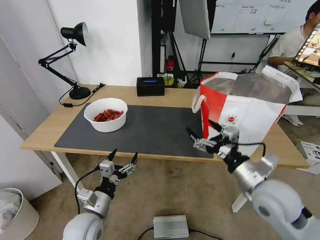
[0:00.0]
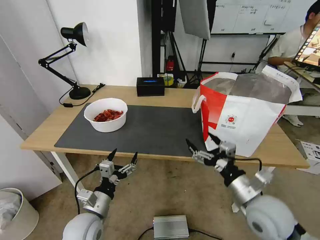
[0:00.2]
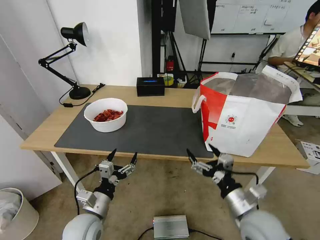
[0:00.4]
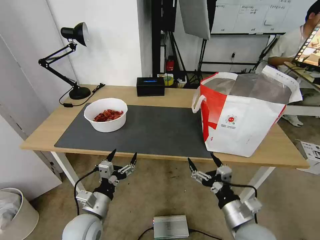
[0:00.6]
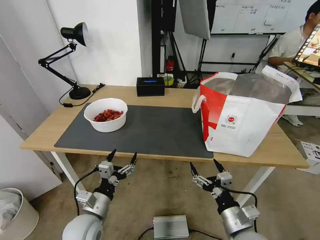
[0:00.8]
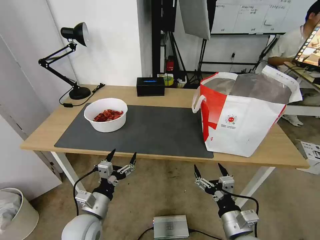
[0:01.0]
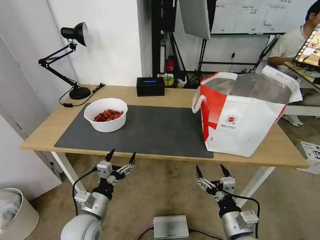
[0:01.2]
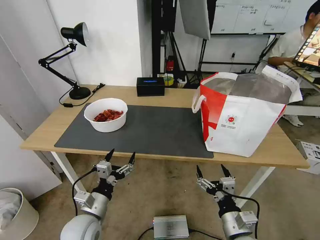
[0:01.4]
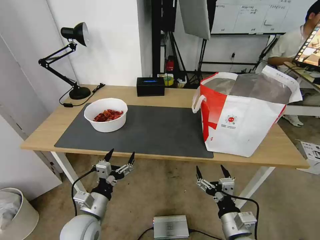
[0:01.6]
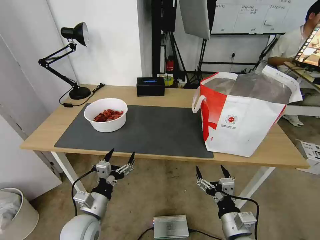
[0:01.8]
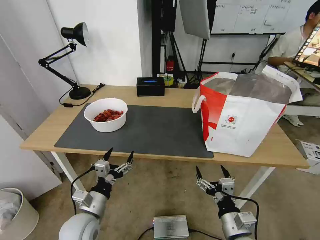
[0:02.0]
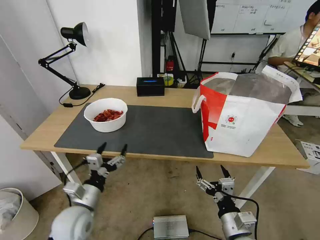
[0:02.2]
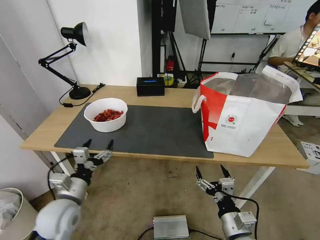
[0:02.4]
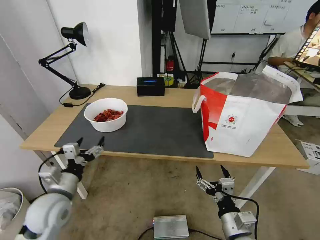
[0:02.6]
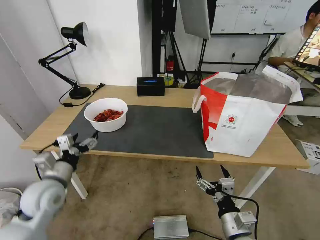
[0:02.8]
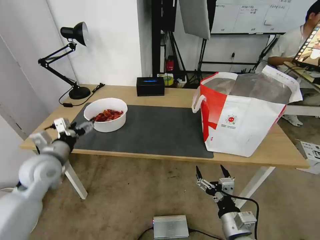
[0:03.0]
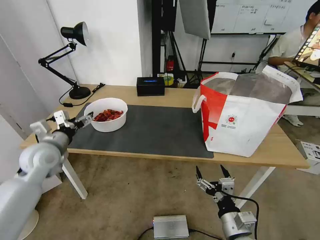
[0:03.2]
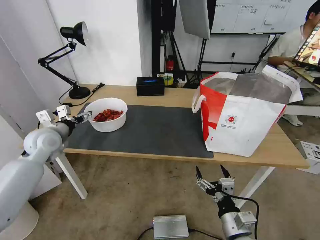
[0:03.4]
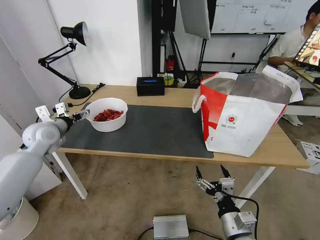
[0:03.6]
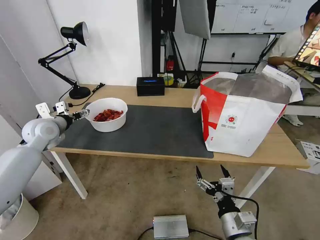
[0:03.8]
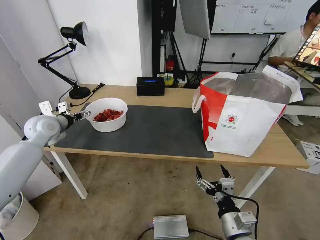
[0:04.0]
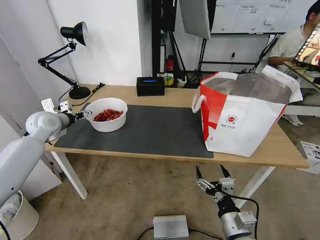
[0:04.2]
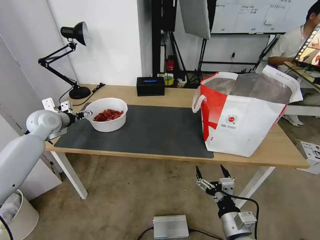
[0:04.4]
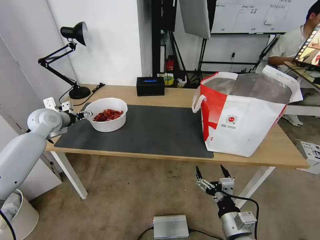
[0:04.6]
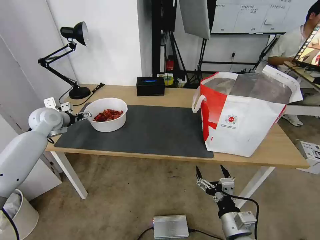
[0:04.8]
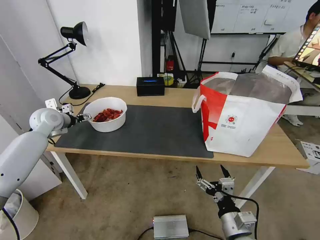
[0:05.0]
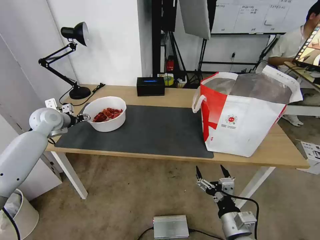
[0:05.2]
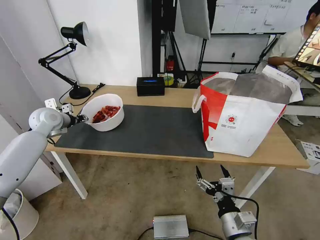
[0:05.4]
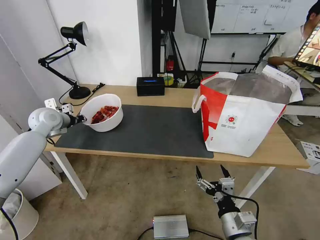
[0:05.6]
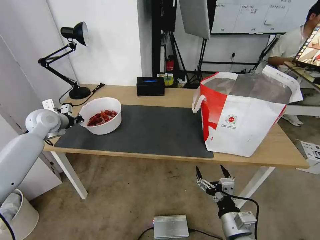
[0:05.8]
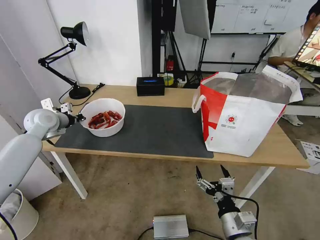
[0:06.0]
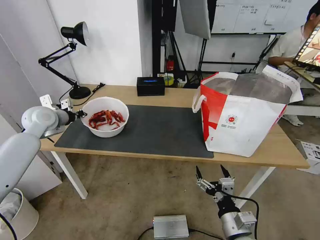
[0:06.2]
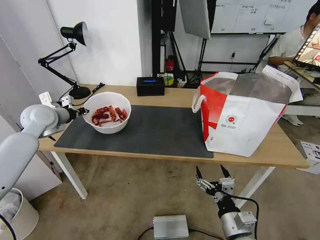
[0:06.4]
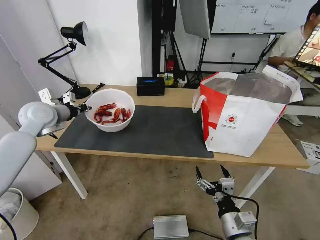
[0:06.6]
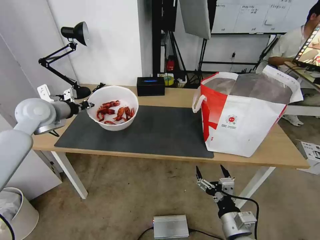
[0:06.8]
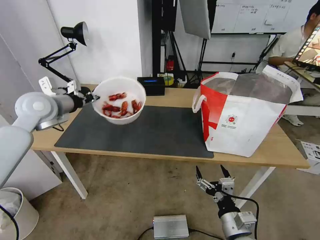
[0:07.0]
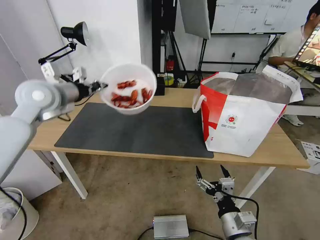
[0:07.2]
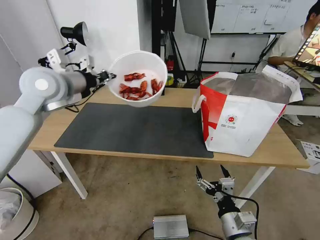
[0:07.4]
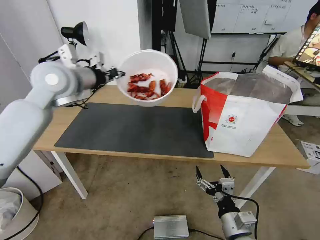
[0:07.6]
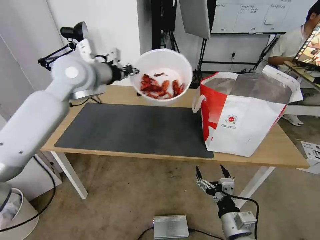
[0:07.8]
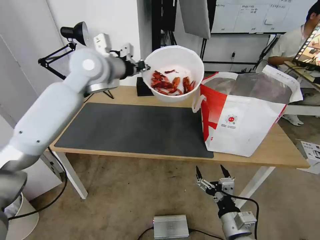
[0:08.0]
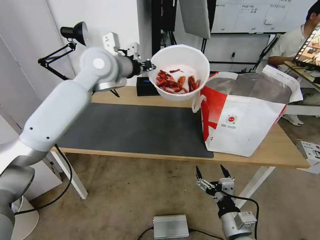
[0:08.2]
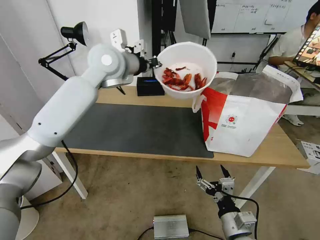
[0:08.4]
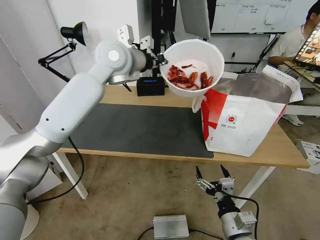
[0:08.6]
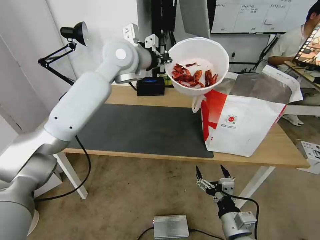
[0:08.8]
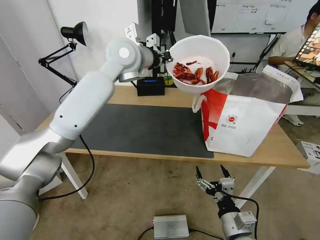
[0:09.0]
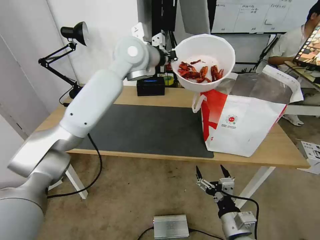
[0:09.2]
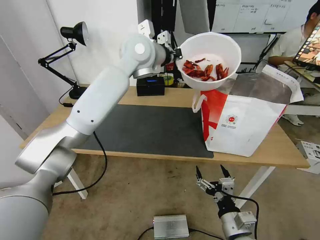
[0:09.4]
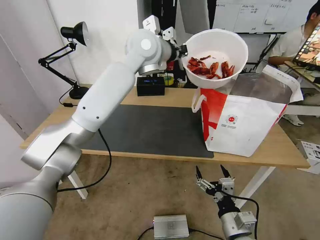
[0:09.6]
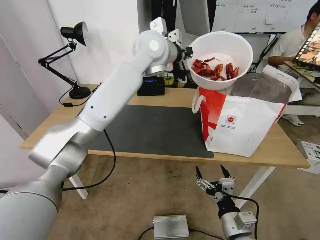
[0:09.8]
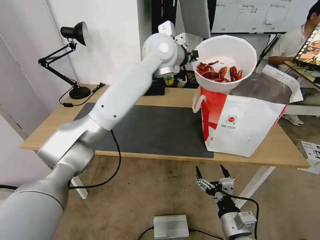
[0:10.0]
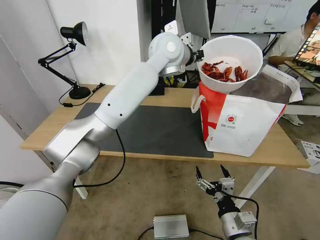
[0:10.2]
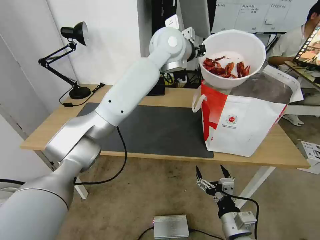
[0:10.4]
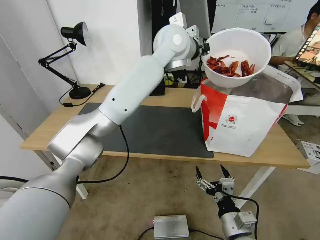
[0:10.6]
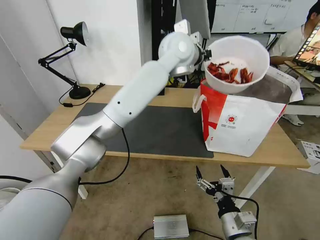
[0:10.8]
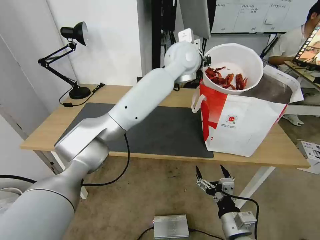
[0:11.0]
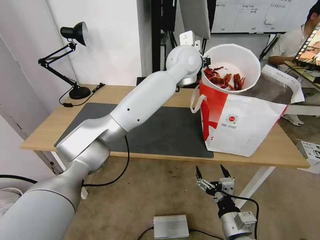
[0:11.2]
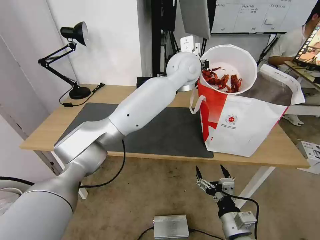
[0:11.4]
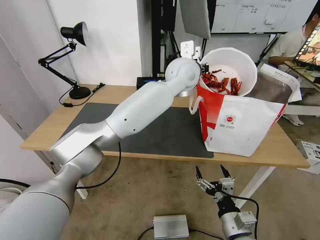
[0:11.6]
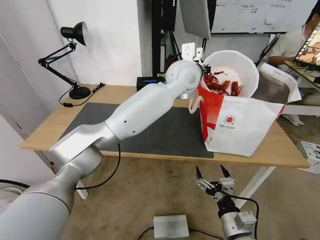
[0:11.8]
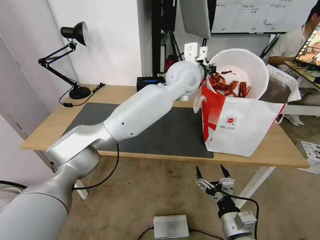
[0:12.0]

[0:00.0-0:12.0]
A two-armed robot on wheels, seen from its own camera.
Task of the whole recording: Pick up the trash from the table and place it into the takeout bag.
0:00.0 to 0:01.6: The right gripper shifts some 15 cm downward and backward.
0:01.6 to 0:03.0: The left gripper shifts roughly 20 cm forward, upward and to the left.
0:03.0 to 0:04.4: The left gripper heads forward, covering approximately 15 cm.
0:04.4 to 0:06.0: The left gripper closes its fingers.
0:06.0 to 0:07.6: The left gripper heads upward and to the right, covering roughly 20 cm.
0:07.6 to 0:09.0: The left gripper is displaced to the right and forward by approximately 20 cm.
0:09.0 to 0:10.4: The left gripper goes approximately 10 cm to the right.
0:10.4 to 0:12.0: The left gripper goes roughly 5 cm downward.

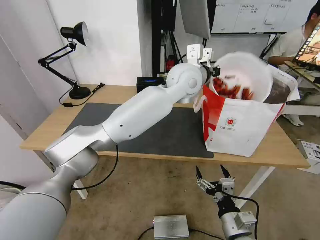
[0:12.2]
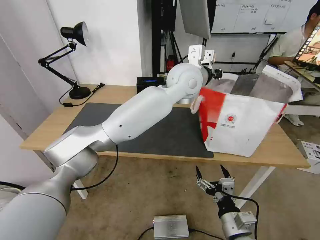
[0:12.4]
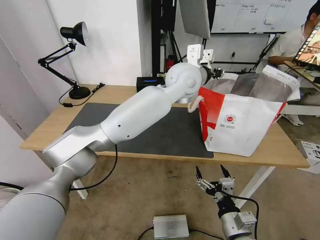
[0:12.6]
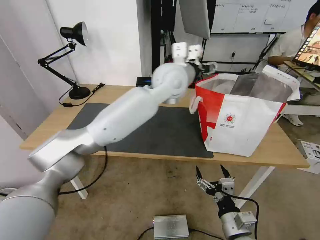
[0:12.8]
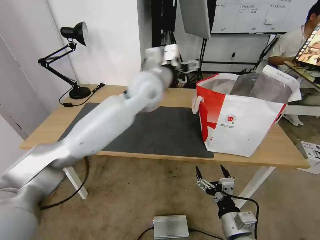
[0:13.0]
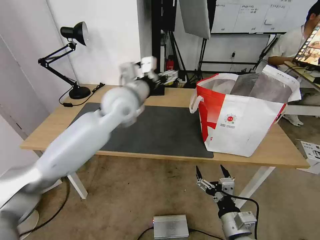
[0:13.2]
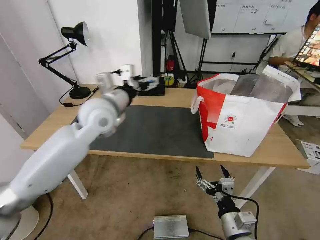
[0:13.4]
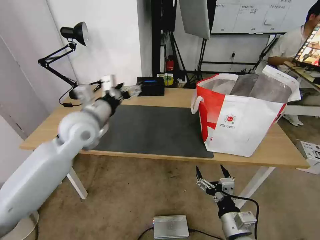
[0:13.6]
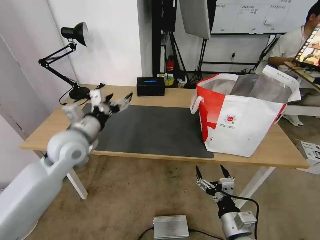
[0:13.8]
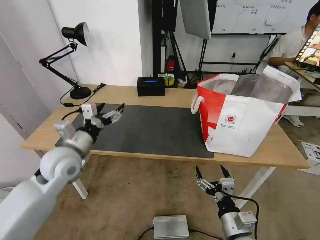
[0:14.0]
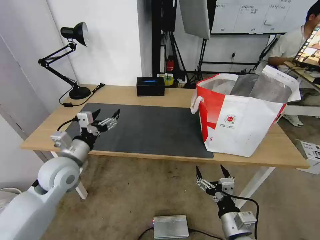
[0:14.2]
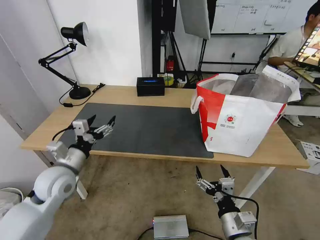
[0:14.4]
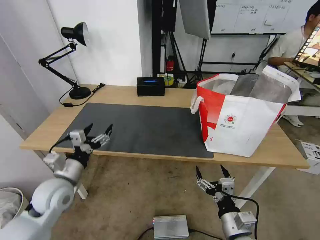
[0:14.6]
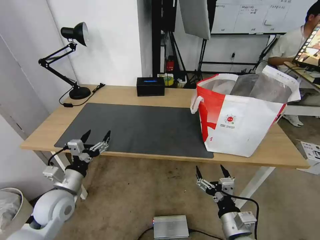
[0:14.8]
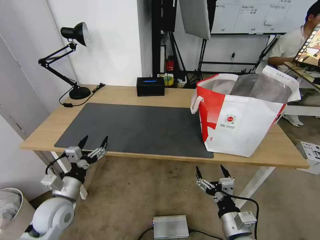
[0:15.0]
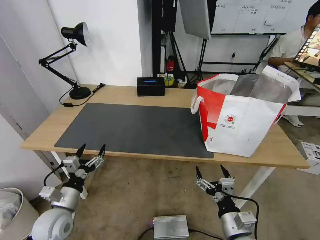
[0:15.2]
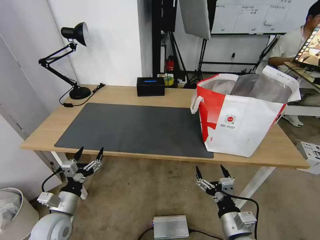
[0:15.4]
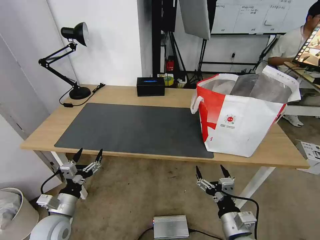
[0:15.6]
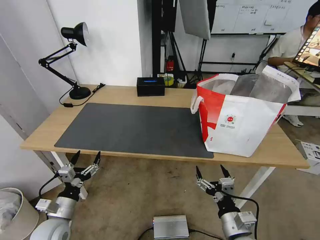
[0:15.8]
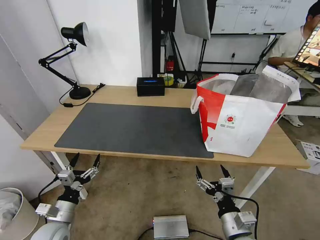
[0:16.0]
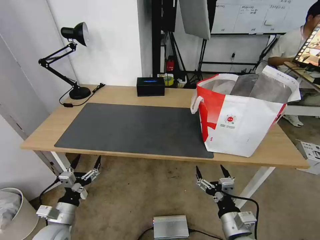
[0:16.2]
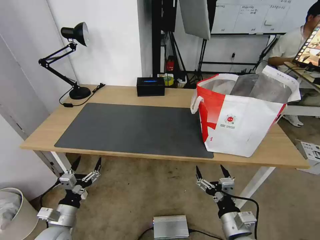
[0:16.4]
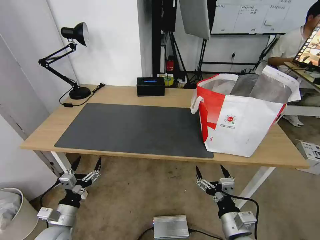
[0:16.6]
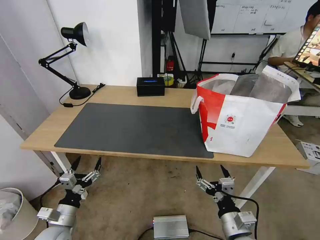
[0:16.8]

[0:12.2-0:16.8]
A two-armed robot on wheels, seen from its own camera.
Task of the whole recording: Pick up the trash from the table and place it into the takeout bag.
0:12.2 to 0:13.8: The left gripper shifts some 35 cm to the left, backward and downward, and opens.
0:13.8 to 0:15.2: The left gripper travels downward and backward by roughly 25 cm.
0:15.2 to 0:16.8: The left gripper travels downward by about 5 cm.

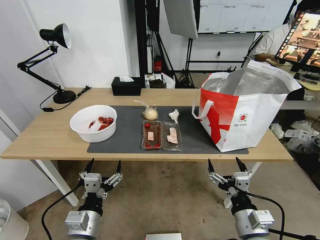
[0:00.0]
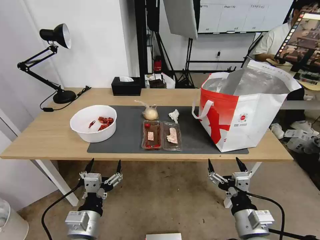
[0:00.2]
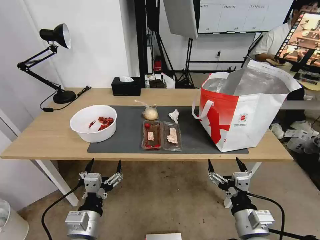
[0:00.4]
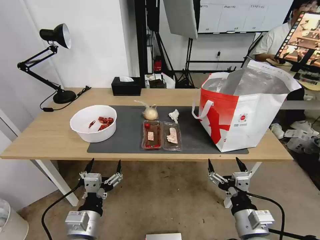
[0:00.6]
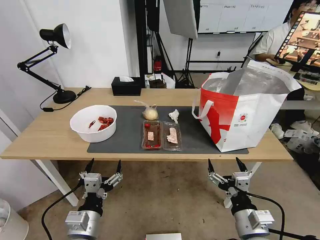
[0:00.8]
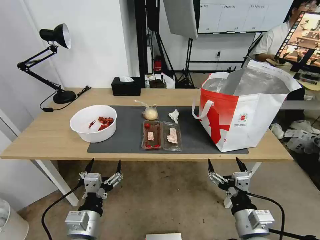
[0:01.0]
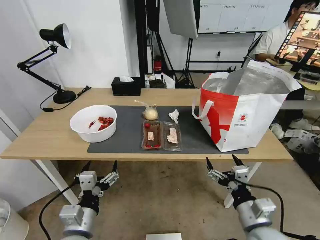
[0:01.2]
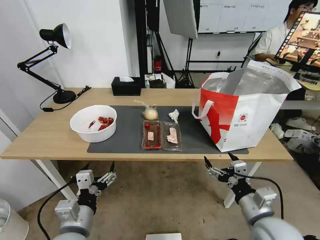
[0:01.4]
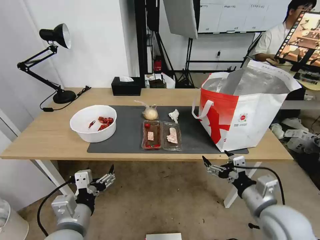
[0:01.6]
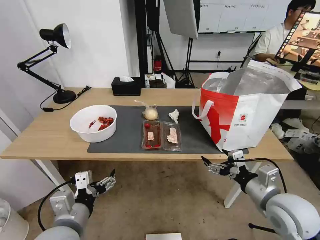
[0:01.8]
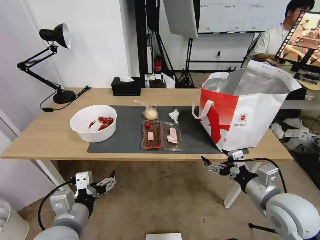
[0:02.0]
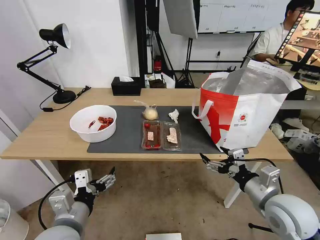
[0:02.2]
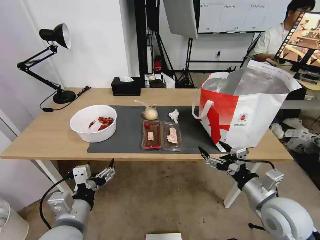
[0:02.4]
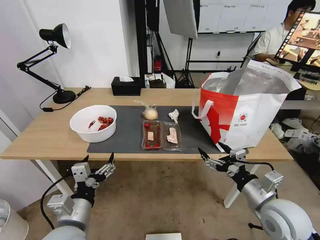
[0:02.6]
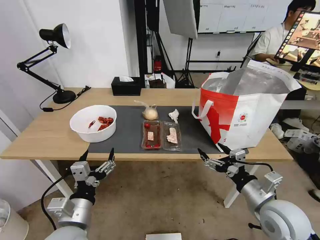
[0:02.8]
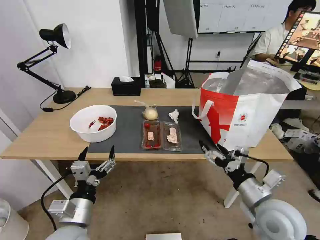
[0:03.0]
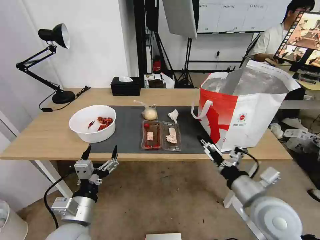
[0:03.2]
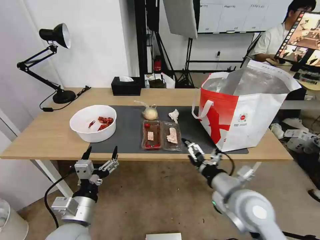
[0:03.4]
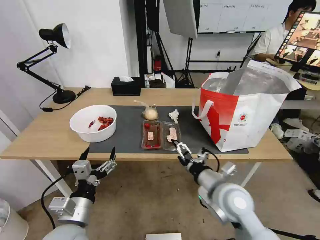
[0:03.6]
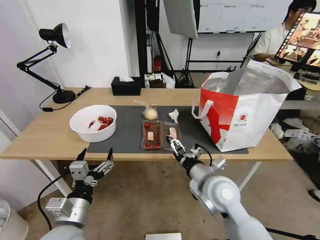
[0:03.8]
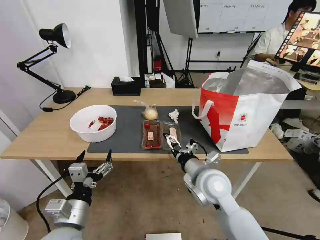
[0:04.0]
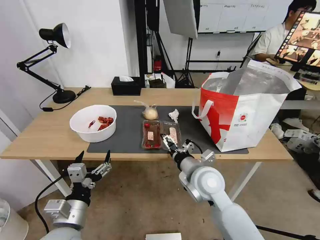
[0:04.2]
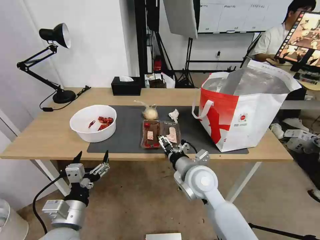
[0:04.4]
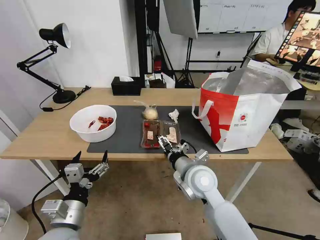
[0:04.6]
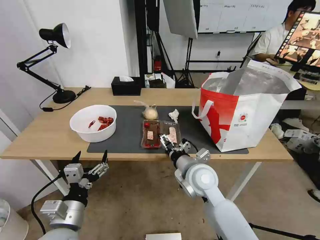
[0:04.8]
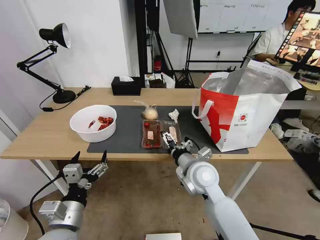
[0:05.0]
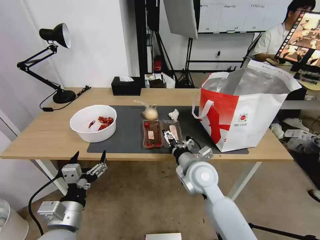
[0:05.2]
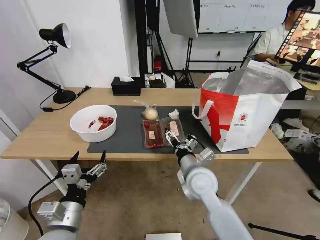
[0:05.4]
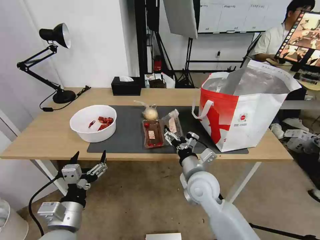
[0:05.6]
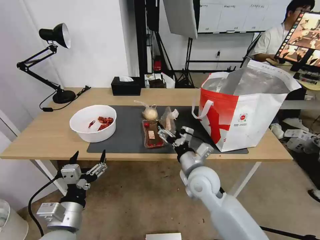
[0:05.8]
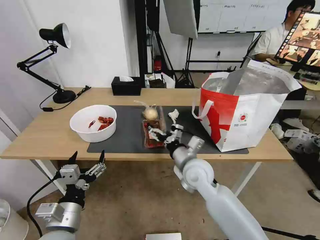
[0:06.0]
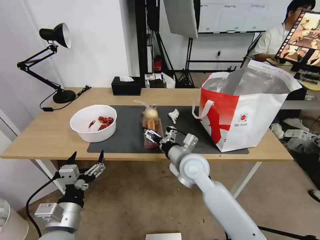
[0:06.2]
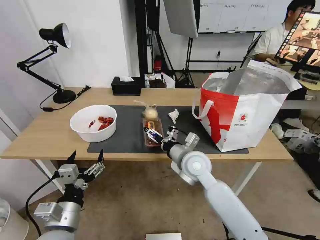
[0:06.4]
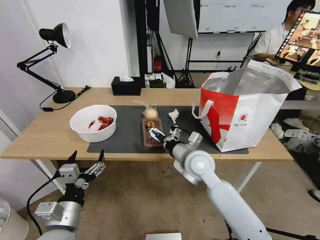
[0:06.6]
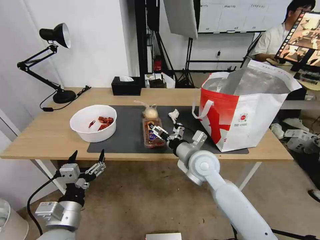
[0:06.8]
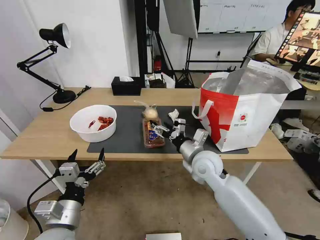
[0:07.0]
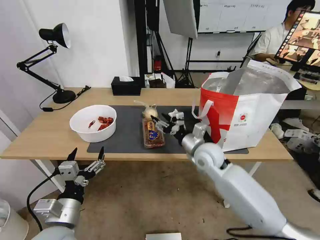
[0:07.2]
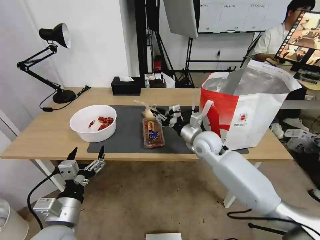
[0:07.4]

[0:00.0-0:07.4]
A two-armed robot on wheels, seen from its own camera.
Task of the whole recording: Pick up the trash from the table and place it into the takeout bag.
0:03.0 to 0:04.4: The right gripper heads to the left and forward, covering about 20 cm.
0:06.0 to 0:07.4: The right gripper moves forward and to the right, some 10 cm, and closes.
